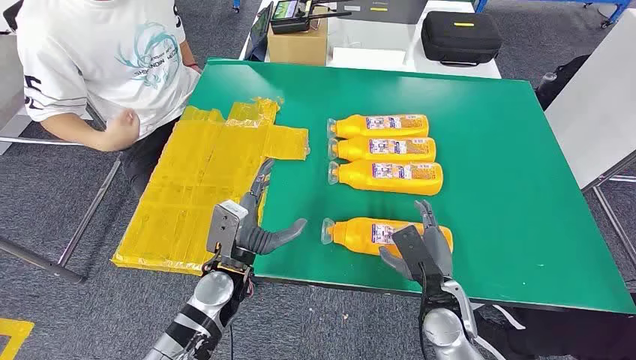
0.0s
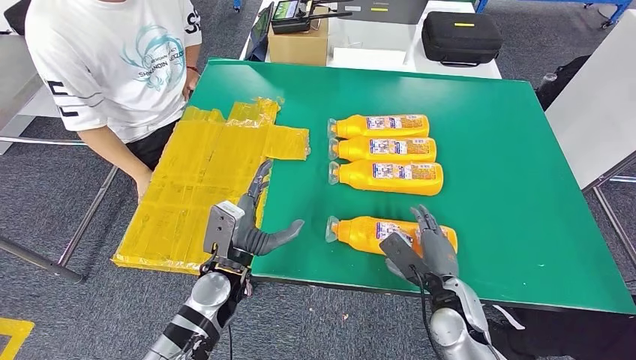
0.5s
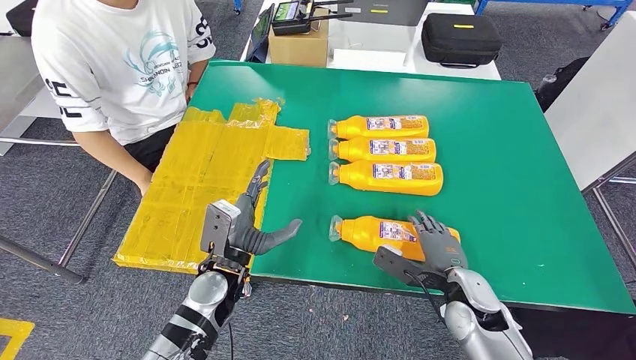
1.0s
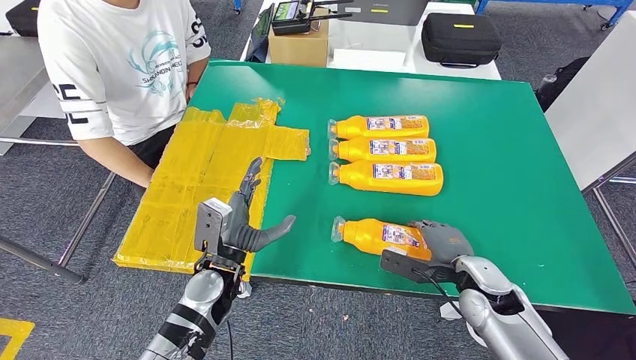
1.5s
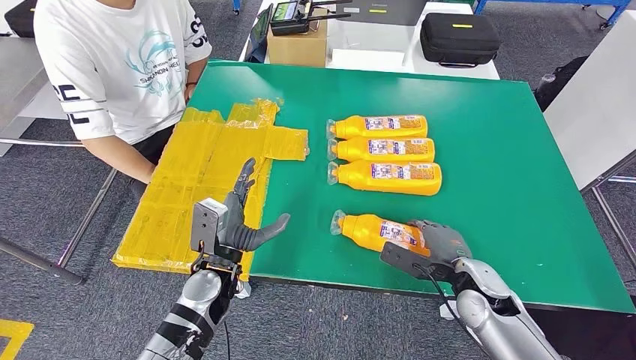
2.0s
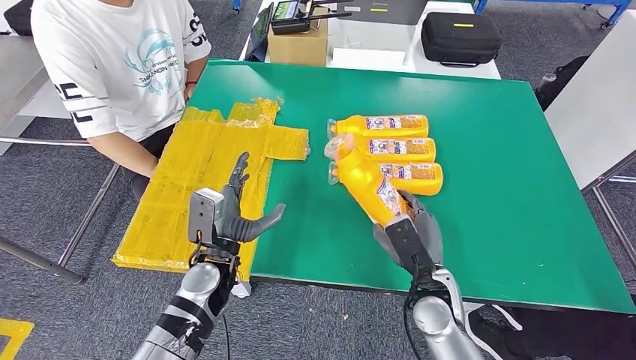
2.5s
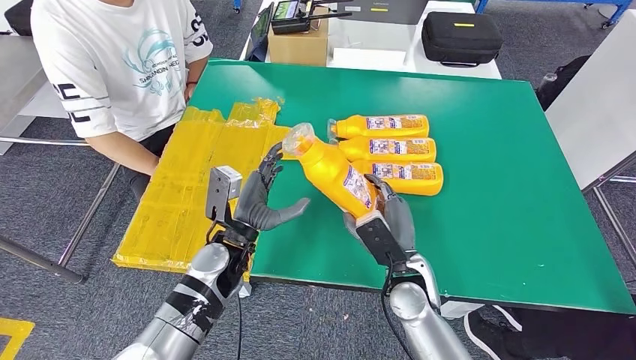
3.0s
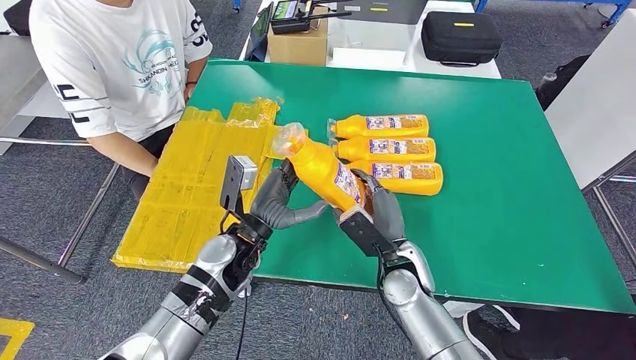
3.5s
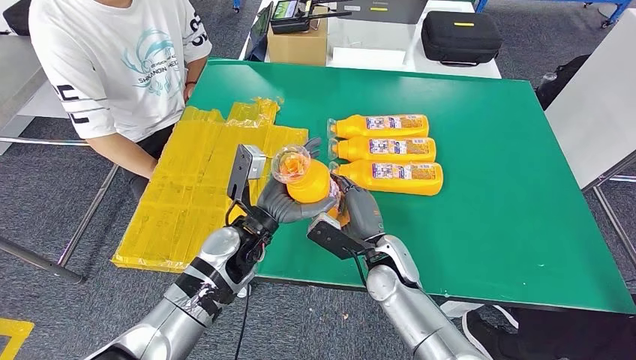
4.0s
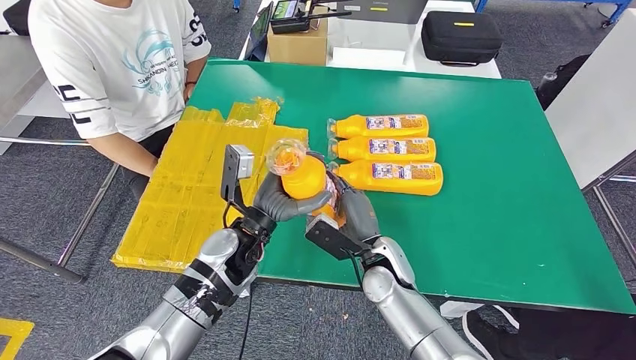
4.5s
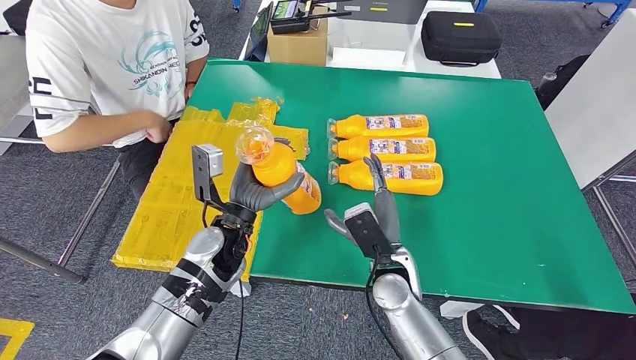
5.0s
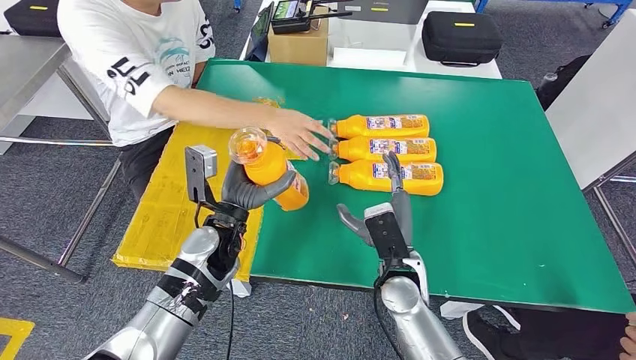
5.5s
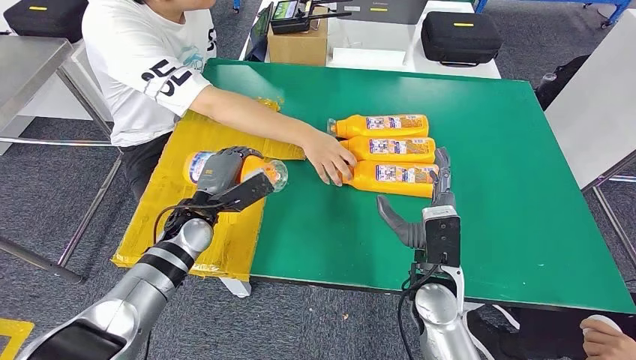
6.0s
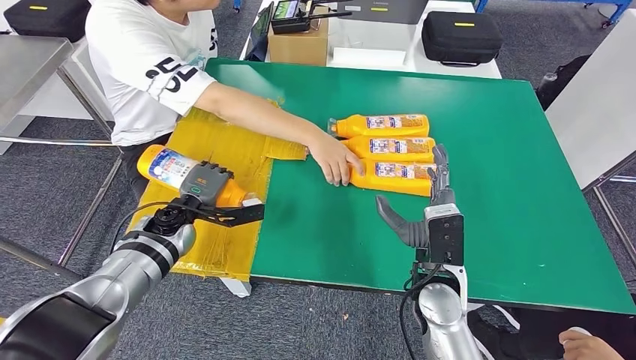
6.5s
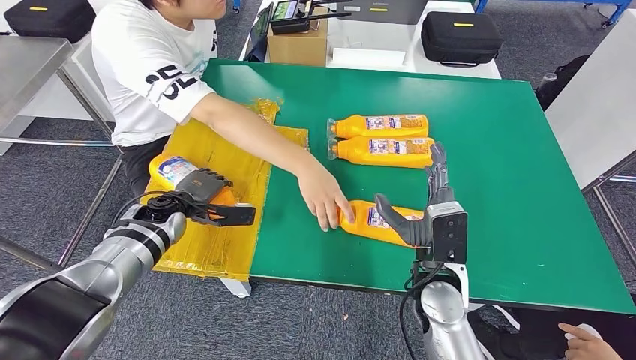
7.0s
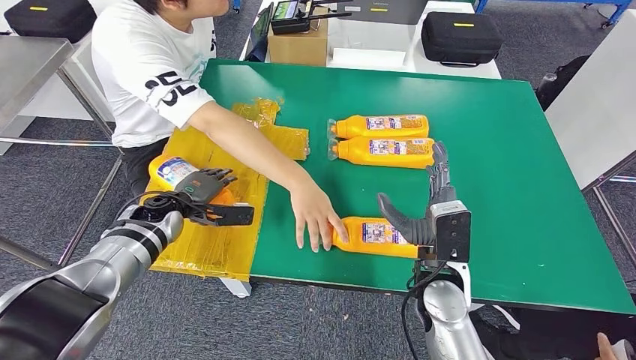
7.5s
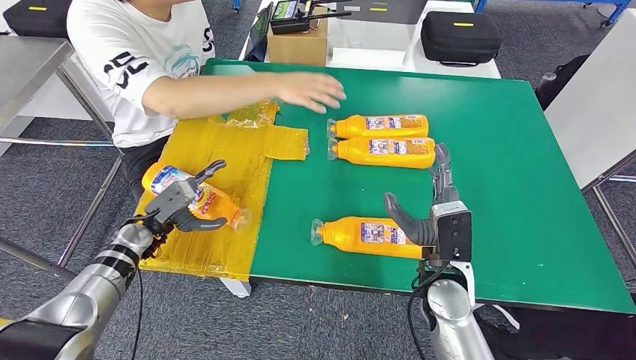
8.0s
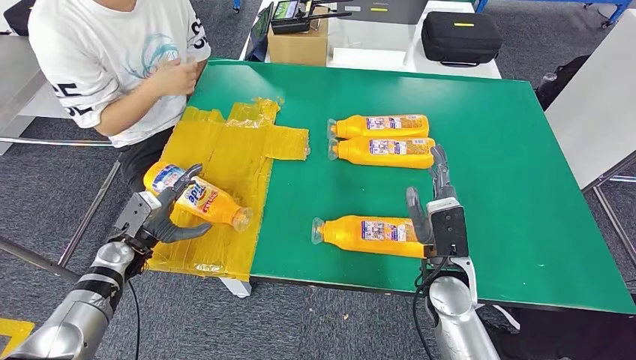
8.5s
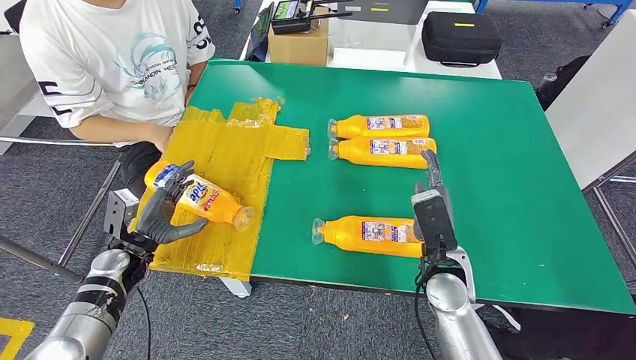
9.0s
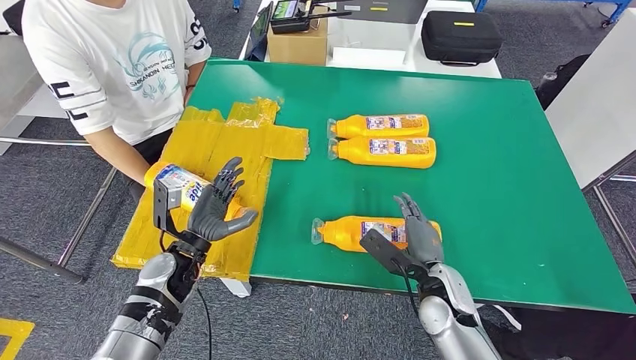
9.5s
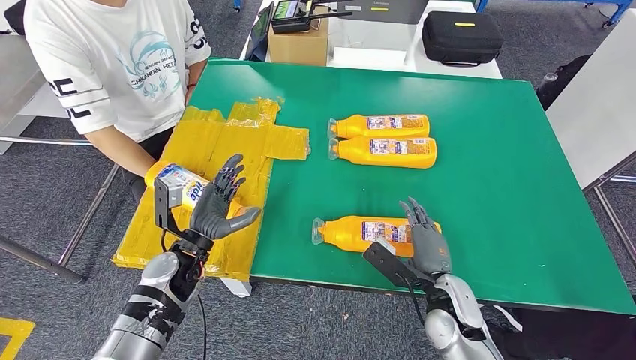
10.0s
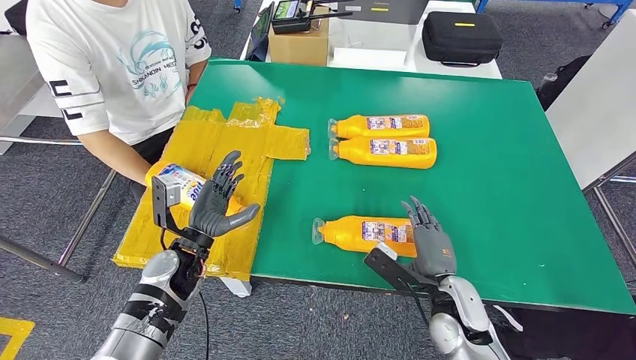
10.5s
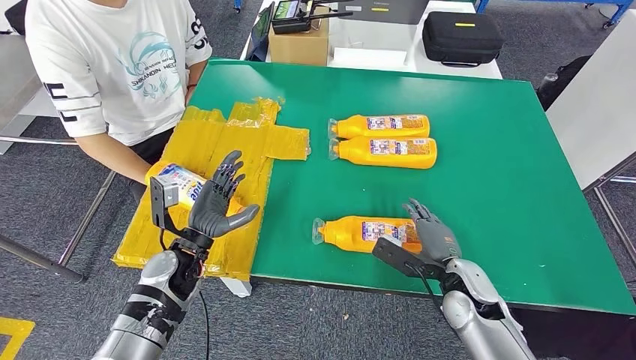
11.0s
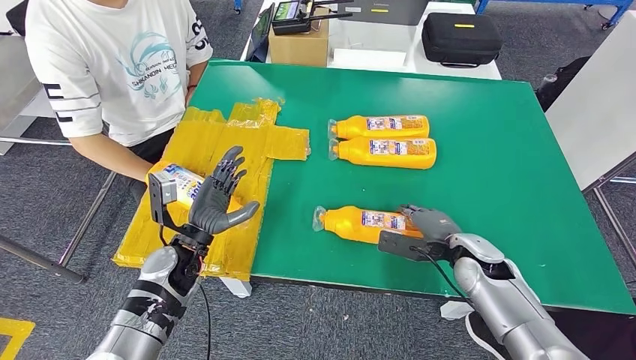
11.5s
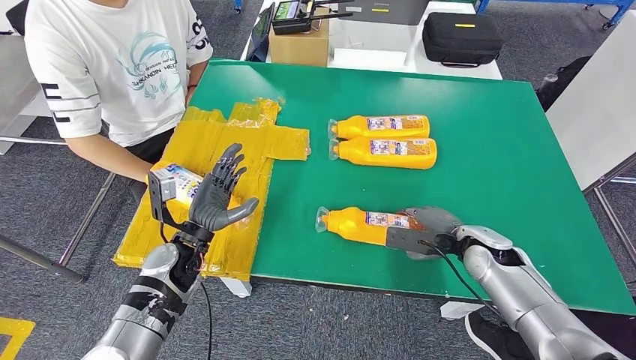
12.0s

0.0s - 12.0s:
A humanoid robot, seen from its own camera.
Step, 0.0s - 2.5s: Take the fast-moving consumer goods bottle from the table.
Step, 3.5s - 8.0s: Flip the fast-moving consumer goods bottle to the front side.
2.0s - 4.0s: The left hand shifts roughly 10 cm upward and forward. The right hand travels to the left by some 15 cm.
10.0s - 12.0s: The right hand shifts some 15 cm forward and to the right.

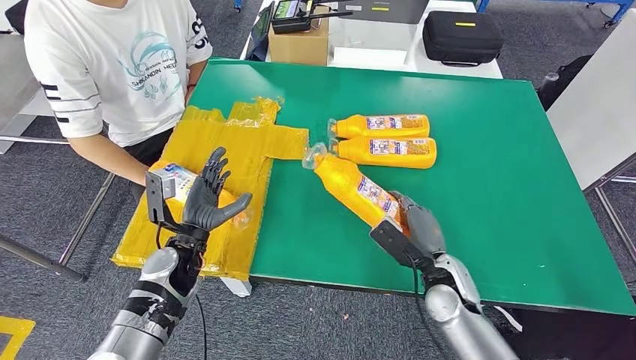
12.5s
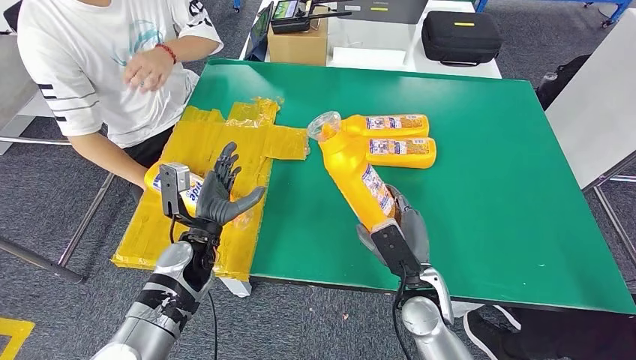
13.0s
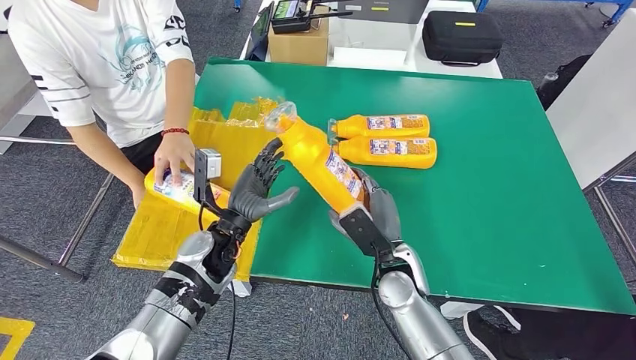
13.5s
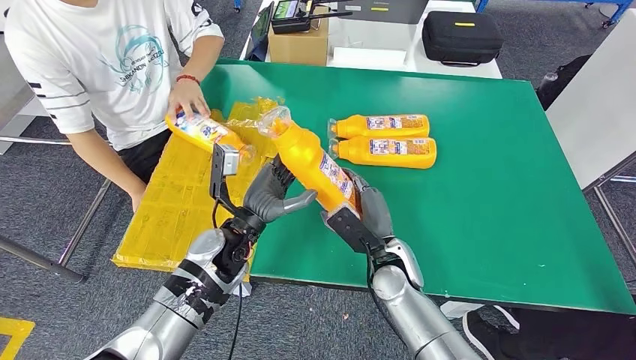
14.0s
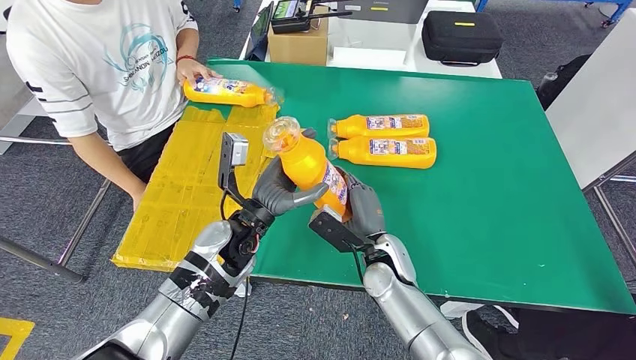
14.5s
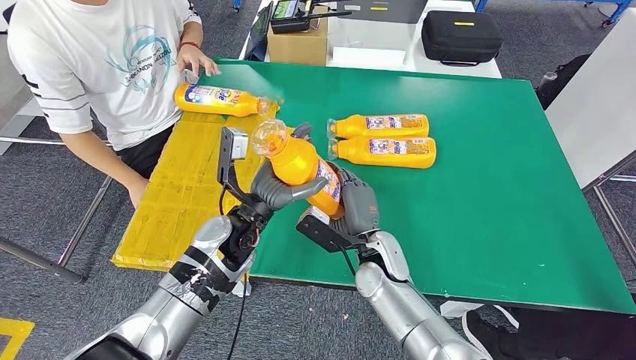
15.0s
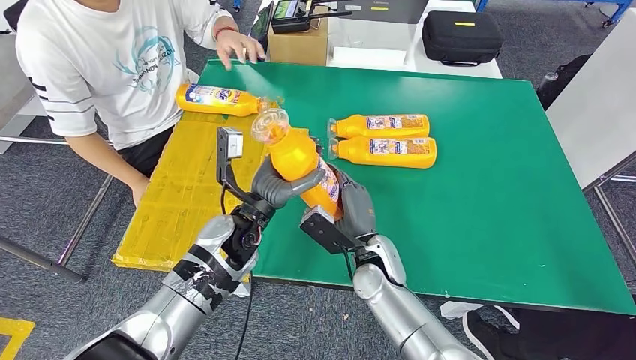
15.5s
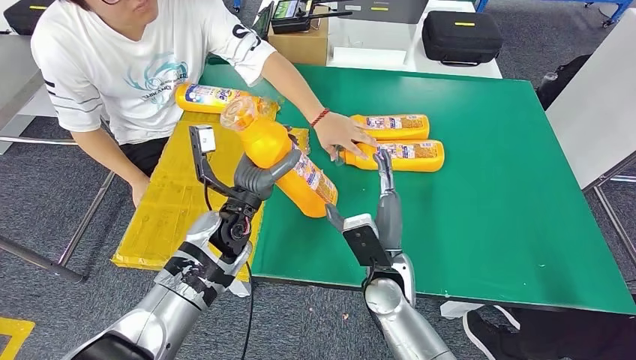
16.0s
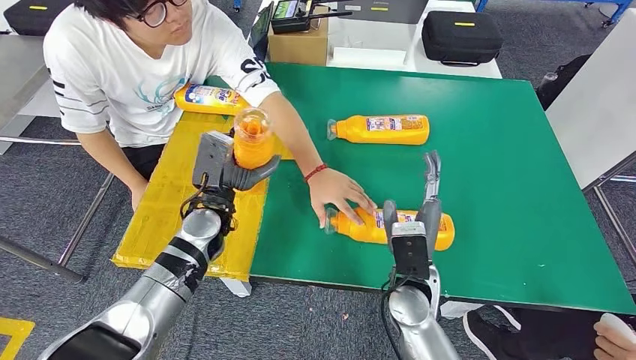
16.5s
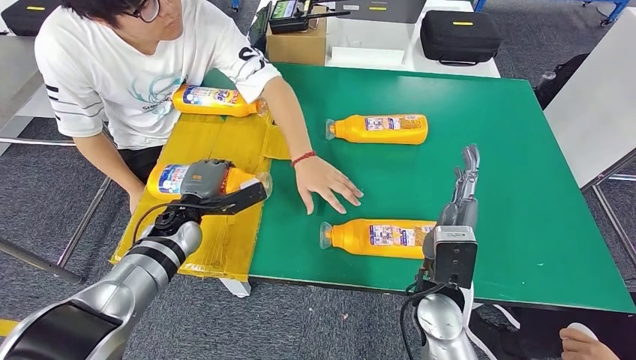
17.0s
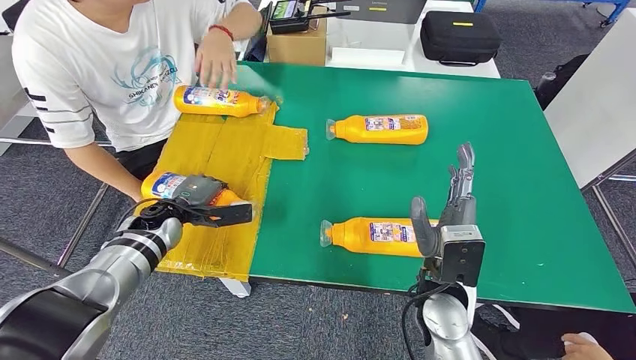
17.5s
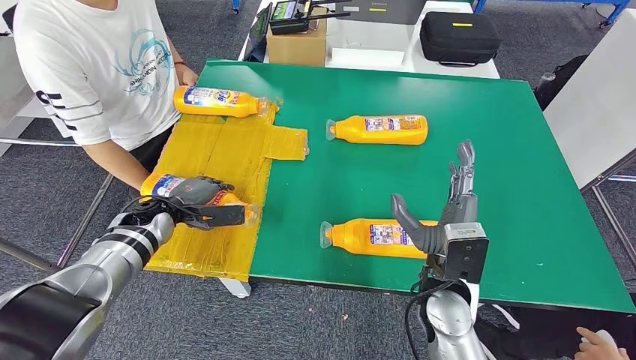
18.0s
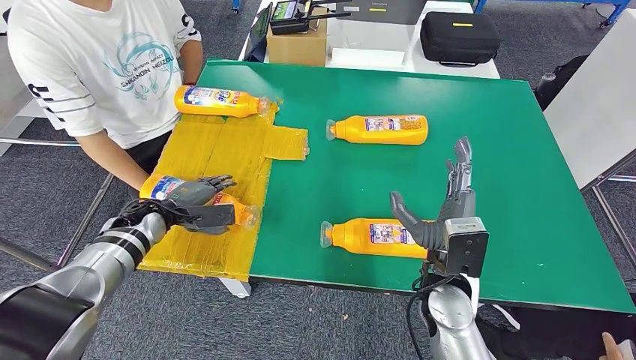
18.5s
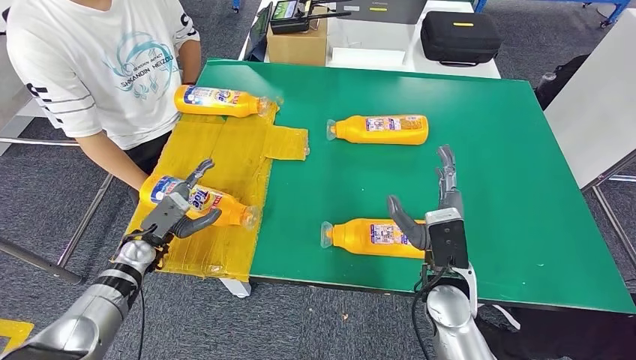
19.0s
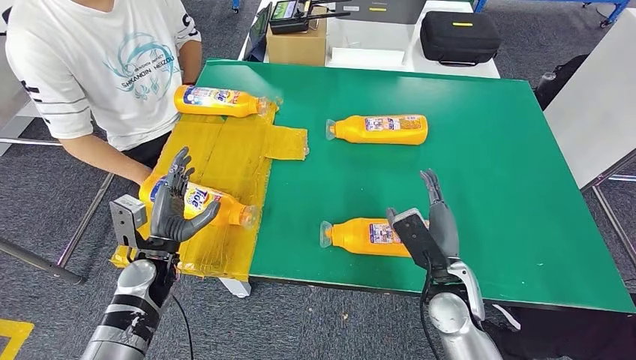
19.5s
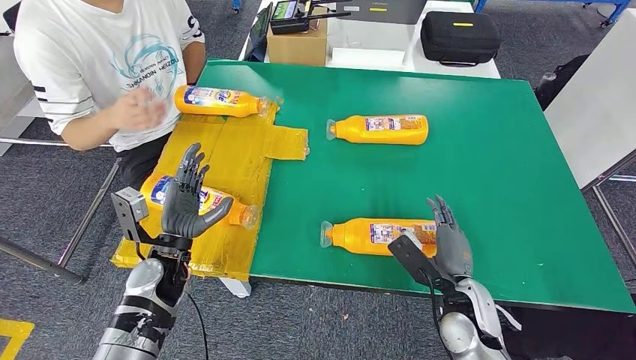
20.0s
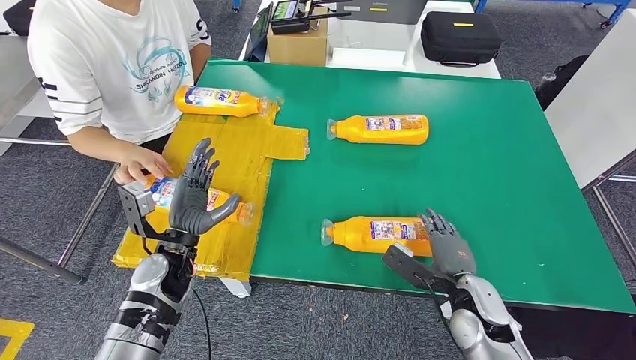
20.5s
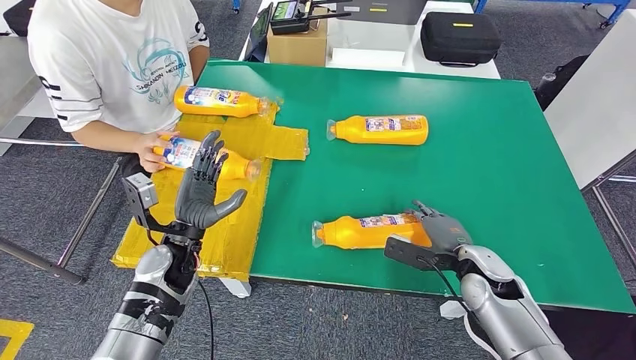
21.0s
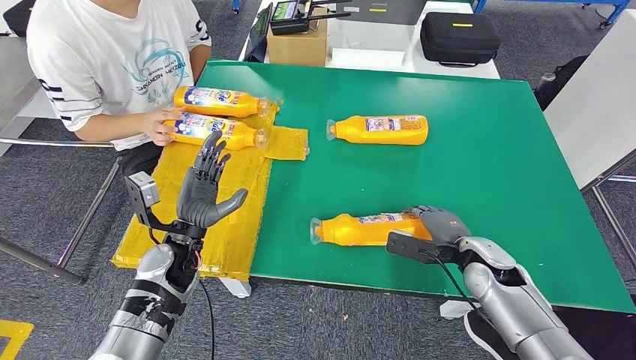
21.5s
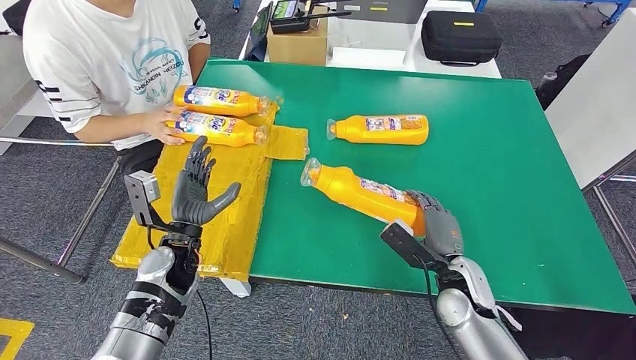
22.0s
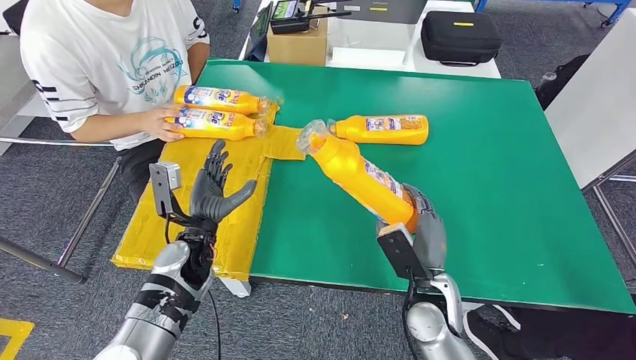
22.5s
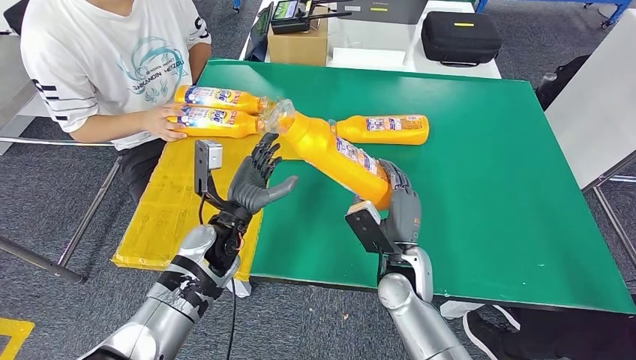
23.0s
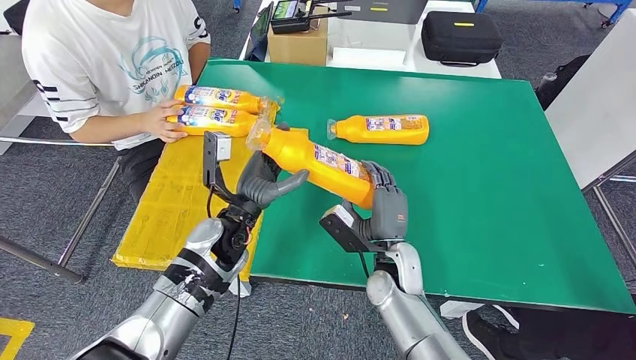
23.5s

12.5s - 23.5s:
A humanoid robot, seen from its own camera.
Step, 13.5s - 19.0s: Flip the fast-moving consumer goods bottle to the front side.
Step, 20.0s - 22.5s: Pick up the fast-moving consumer goods bottle from the table.
20.0s - 21.5s: The right hand goes some 10 cm forward and to the right.
